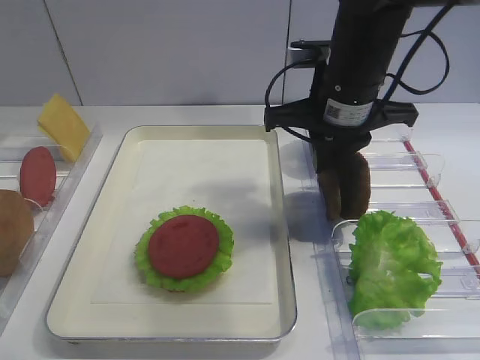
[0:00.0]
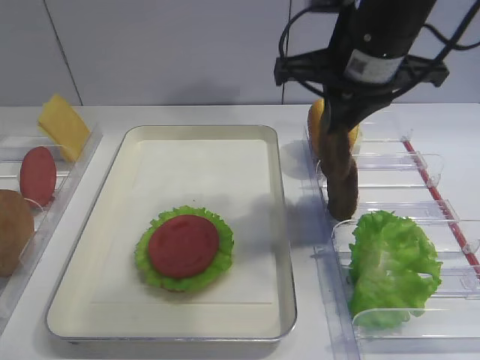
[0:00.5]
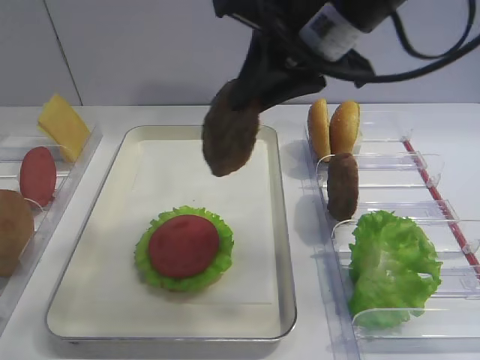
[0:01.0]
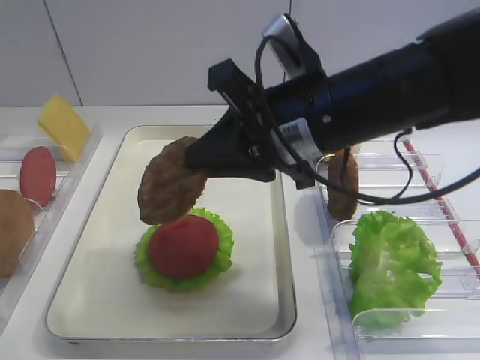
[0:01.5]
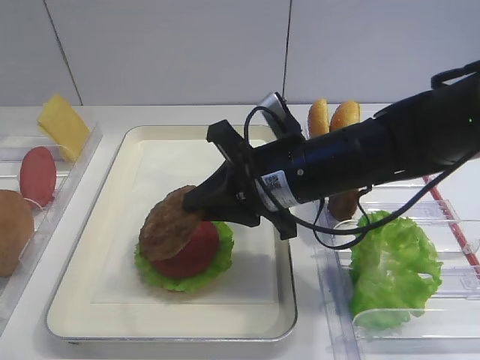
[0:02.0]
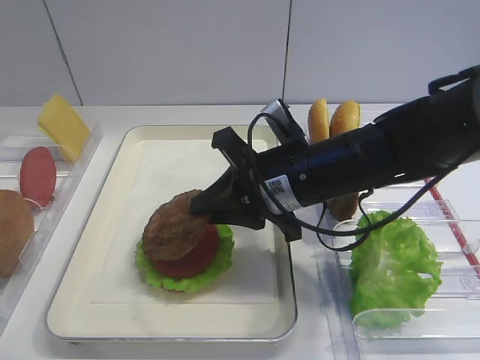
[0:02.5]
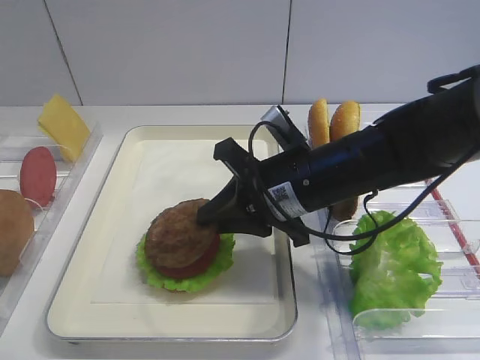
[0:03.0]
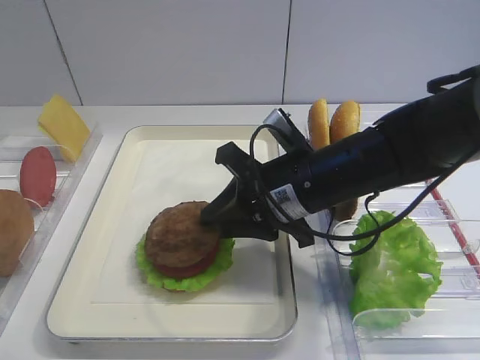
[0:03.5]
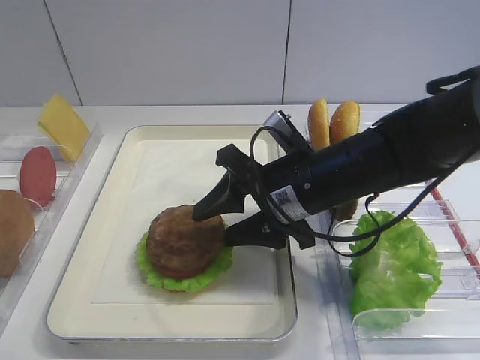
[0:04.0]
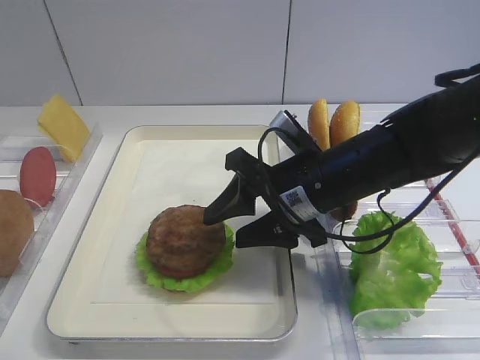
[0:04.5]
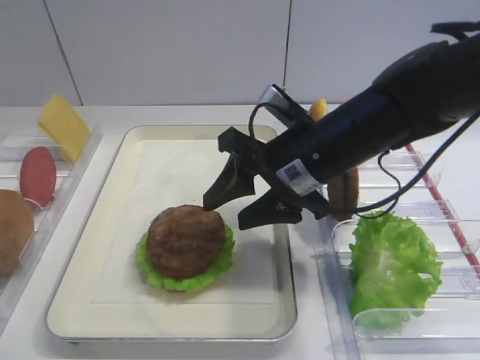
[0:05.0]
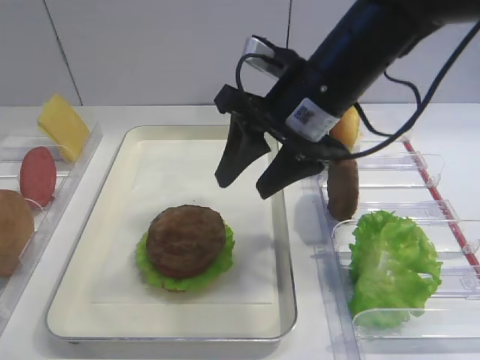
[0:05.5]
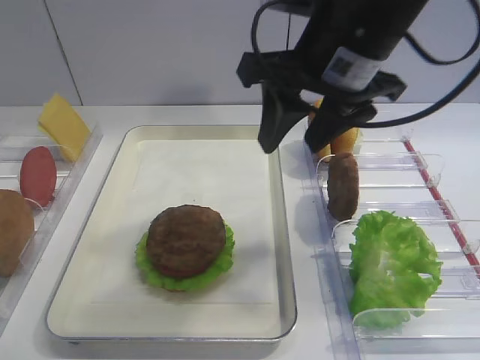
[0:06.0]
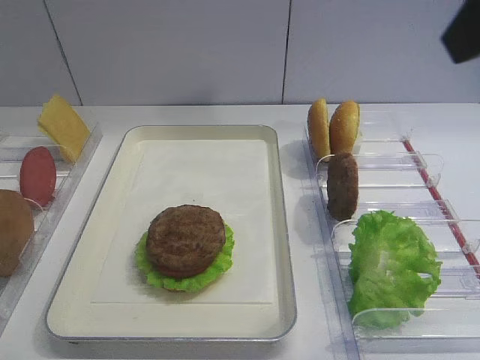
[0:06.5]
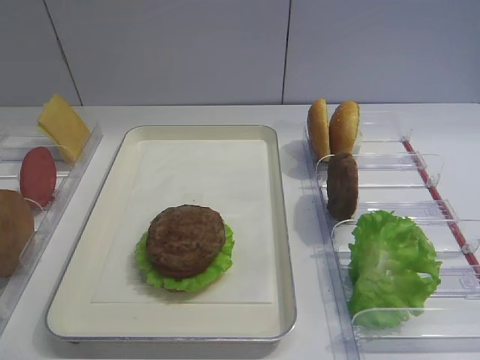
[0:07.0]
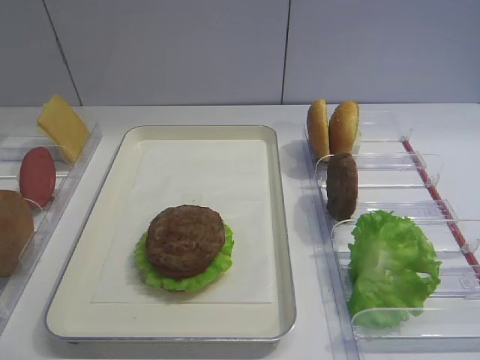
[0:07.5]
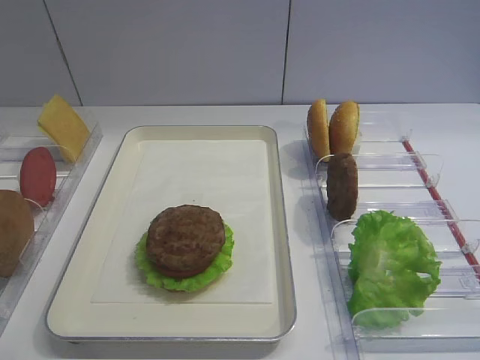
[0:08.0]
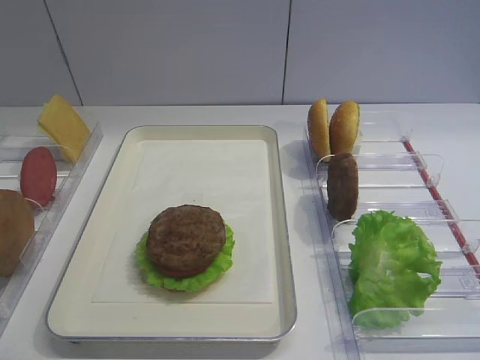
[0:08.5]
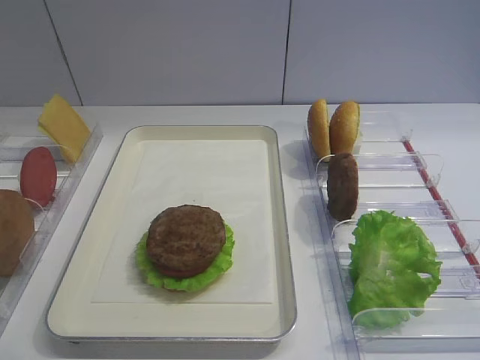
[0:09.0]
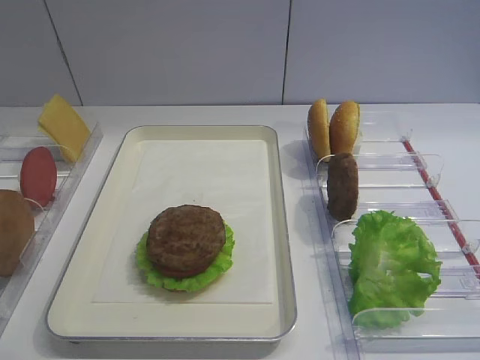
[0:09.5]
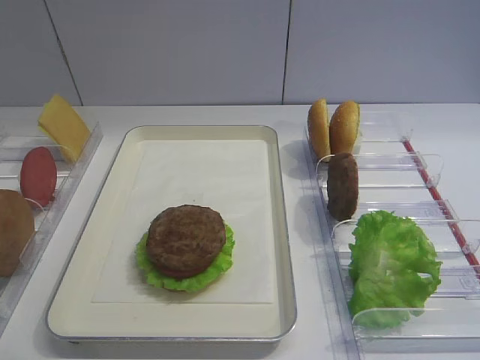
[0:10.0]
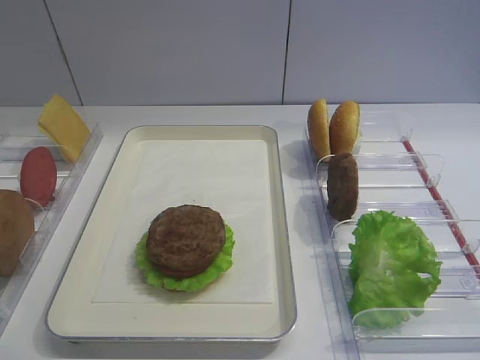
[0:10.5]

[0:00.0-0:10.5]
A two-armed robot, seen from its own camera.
Step, 0:01.0 to 0:03.5: Place the cutlet on the tomato slice with the right gripper.
0:00.0 to 0:02.0: The right gripper heads downward and backward, covering roughly 10 cm.
0:02.0 to 0:04.0: The right gripper opens up.
0:04.0 to 0:06.5: The right gripper shifts approximately 30 cm upward, to the right and backward.
0:06.5 to 0:08.5: The right gripper goes about 25 cm backward, downward and to the right.
0:08.5 to 0:10.5: The two grippers keep their place.

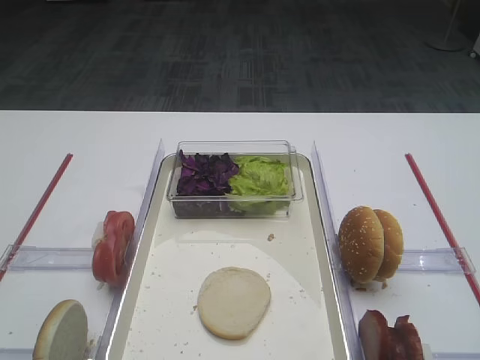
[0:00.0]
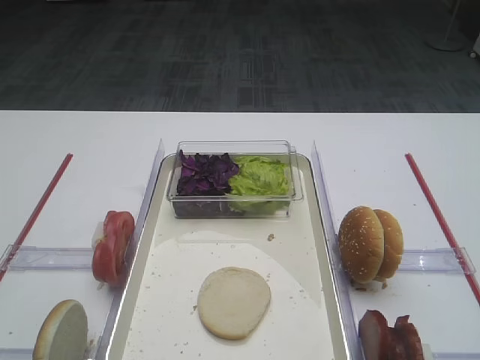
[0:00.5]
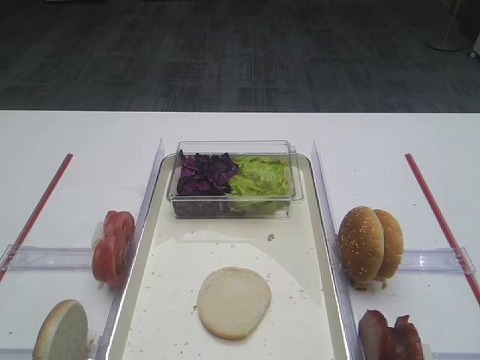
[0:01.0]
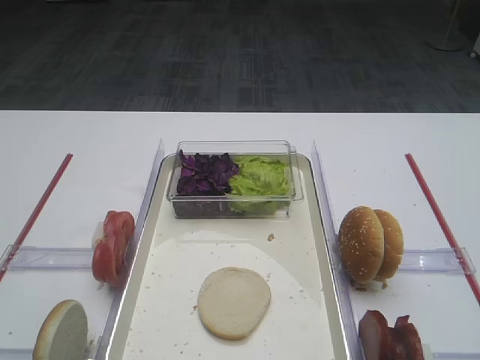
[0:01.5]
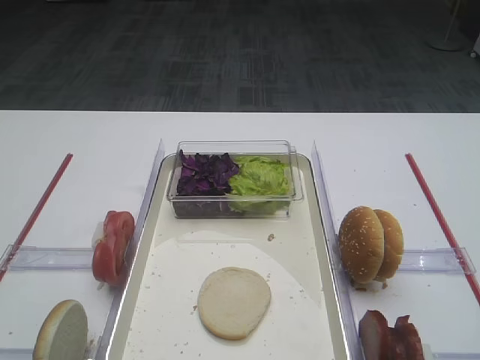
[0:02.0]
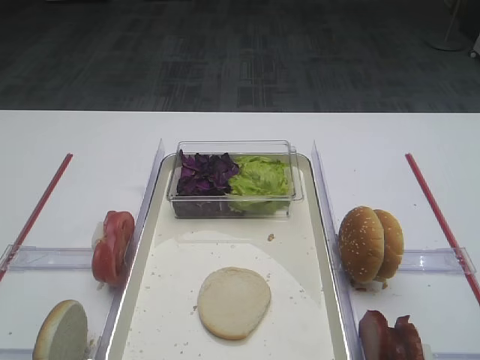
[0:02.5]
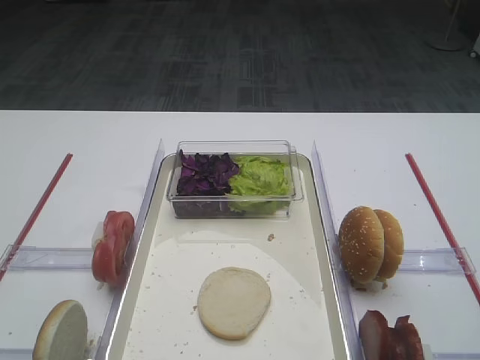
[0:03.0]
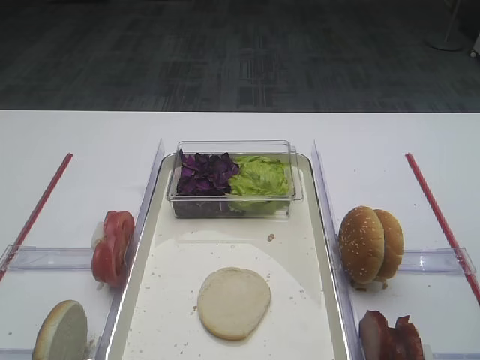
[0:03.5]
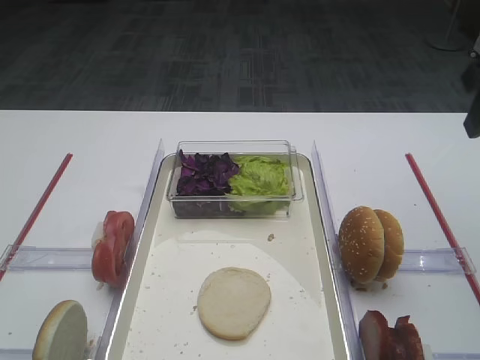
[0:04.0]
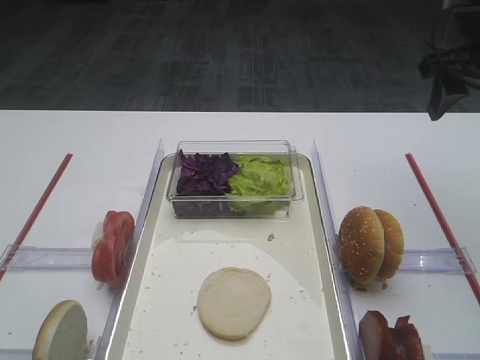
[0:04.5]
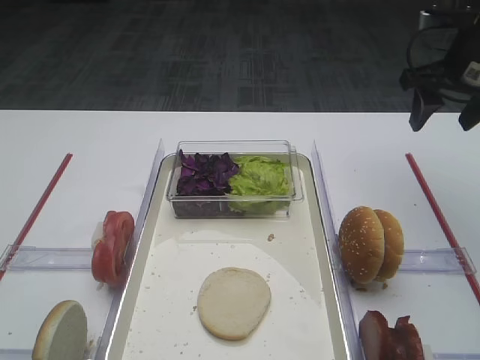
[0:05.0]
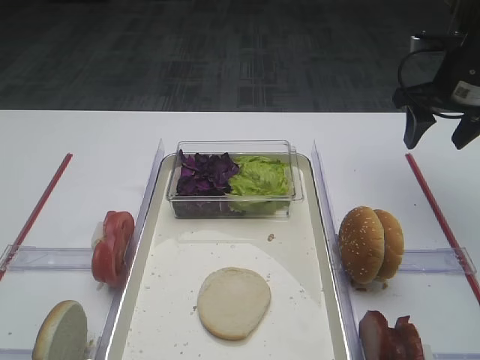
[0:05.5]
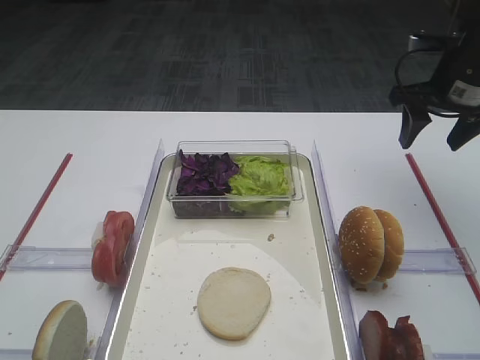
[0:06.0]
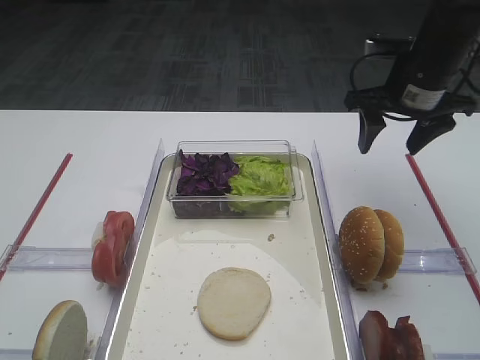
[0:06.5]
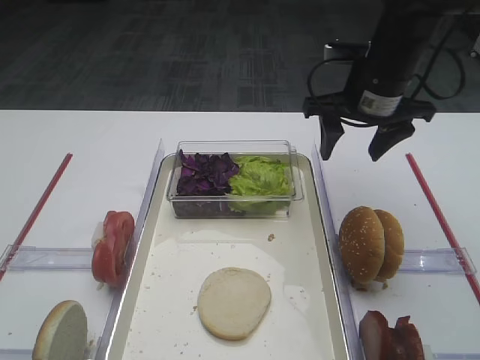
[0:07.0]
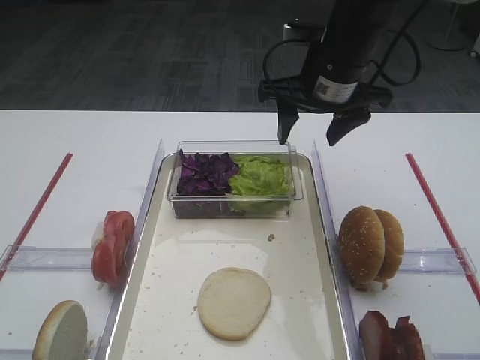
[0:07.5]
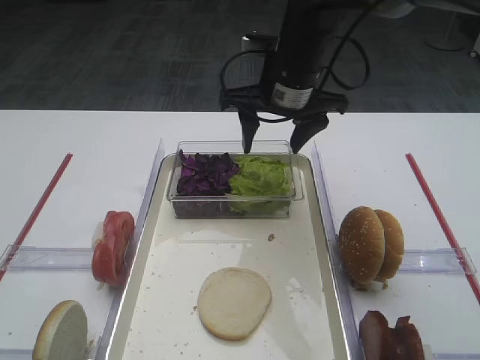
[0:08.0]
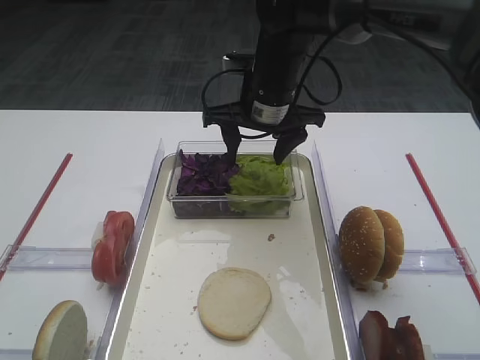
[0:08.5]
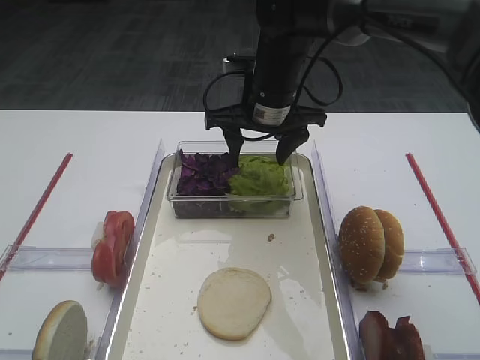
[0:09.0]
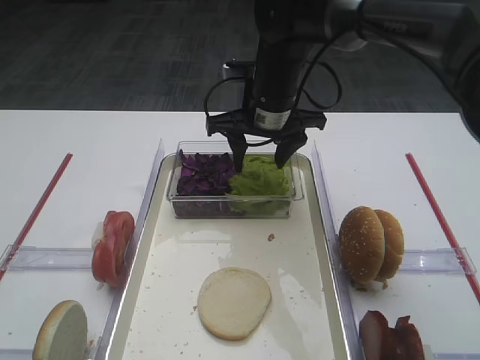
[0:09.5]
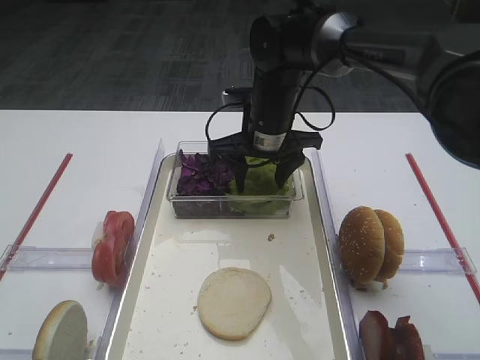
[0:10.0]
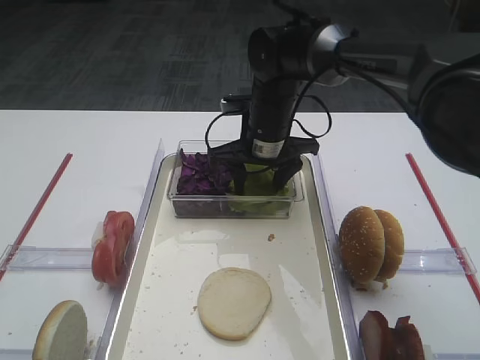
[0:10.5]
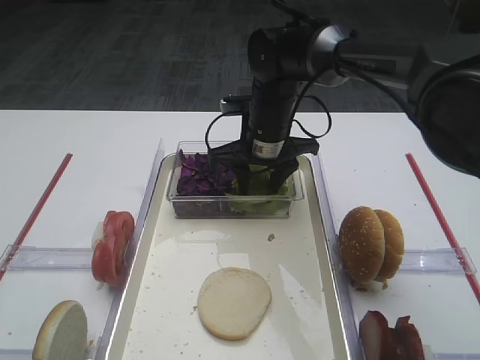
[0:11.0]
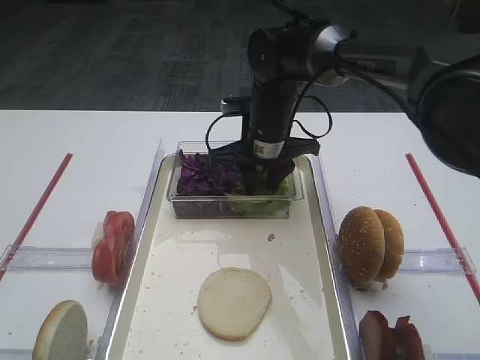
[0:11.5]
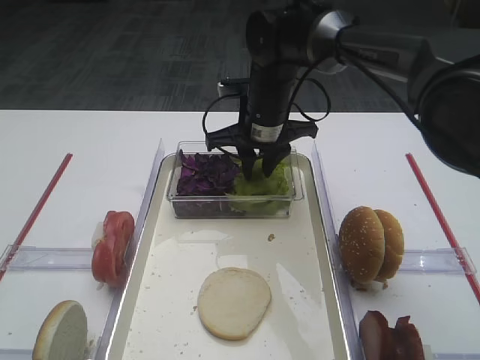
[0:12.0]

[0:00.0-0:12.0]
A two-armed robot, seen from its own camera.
0:02.0 to 0:04.0: The right gripper heads forward, covering about 25 cm.
0:04.0 to 0:06.0: The right gripper moves forward and downward, some 15 cm.
0:06.0 to 0:08.0: The right gripper moves to the left, about 20 cm.
0:08.0 to 0:10.0: The right gripper heads downward, covering approximately 5 cm.
0:10.0 to 0:12.0: The right gripper closes.

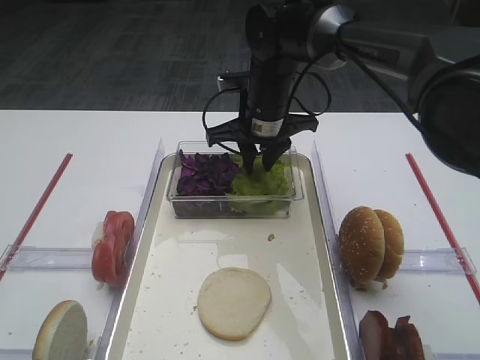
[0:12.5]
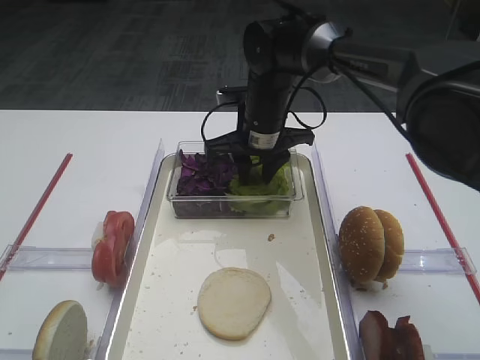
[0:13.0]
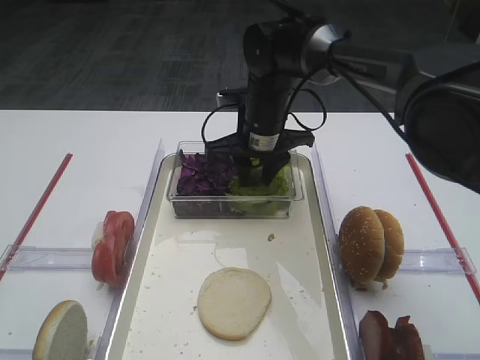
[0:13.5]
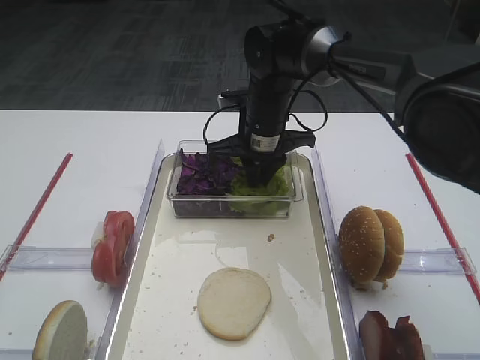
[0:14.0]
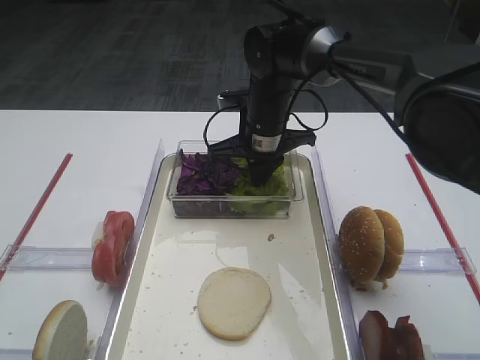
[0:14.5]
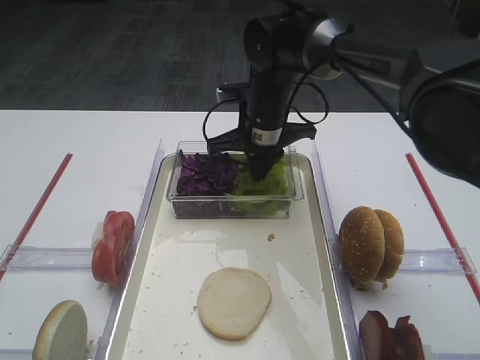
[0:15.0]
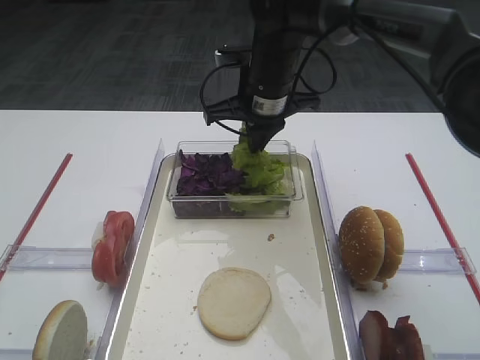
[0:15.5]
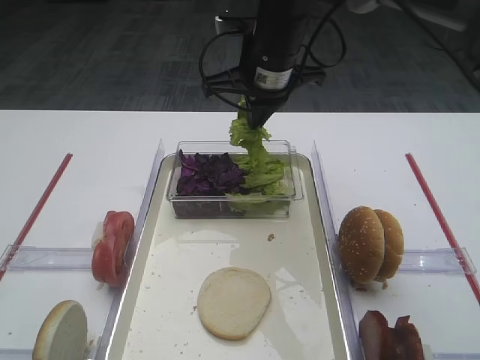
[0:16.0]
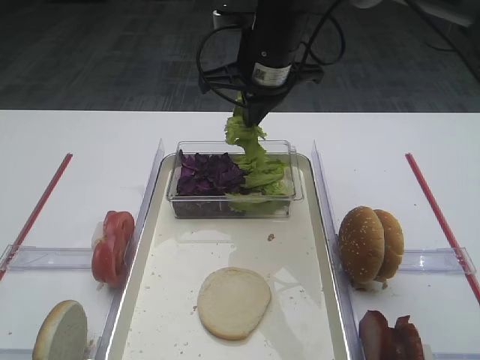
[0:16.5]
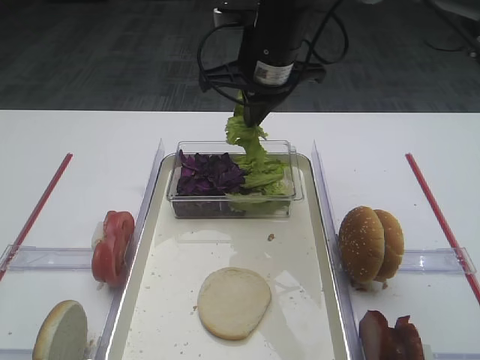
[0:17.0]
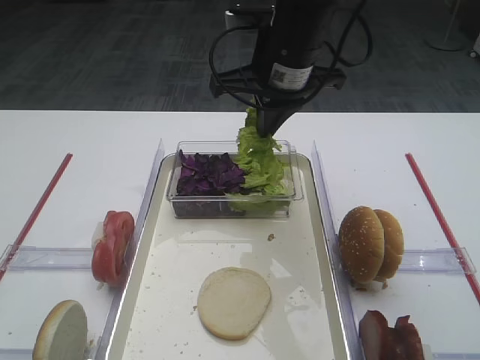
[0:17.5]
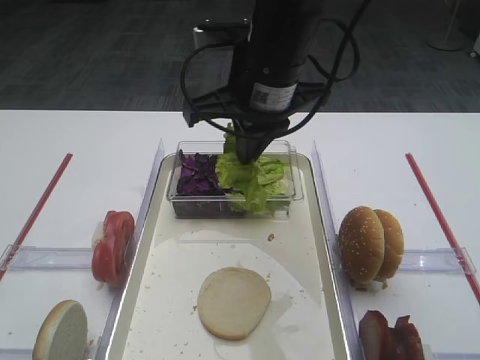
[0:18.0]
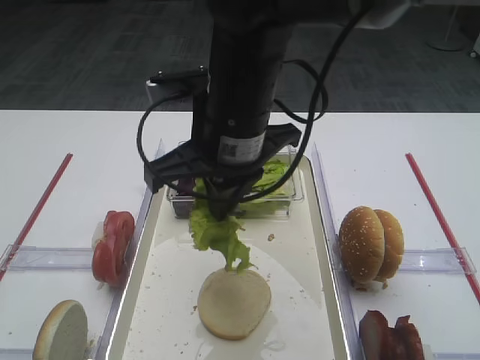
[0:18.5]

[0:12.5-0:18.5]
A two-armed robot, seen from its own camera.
Step, 0:12.5 to 0:17.0: Pick up the lettuce leaf with the right gripper.
0:12.5 to 0:14.5: The right gripper closes up.
0:14.5 to 0:16.5: The right gripper moves upward, roughly 10 cm.
0:16.5 to 0:18.5: The right gripper is displaced backward by approximately 15 cm.
